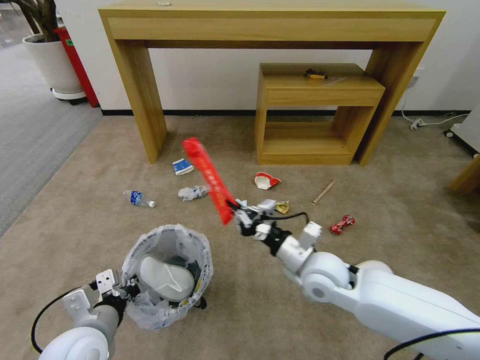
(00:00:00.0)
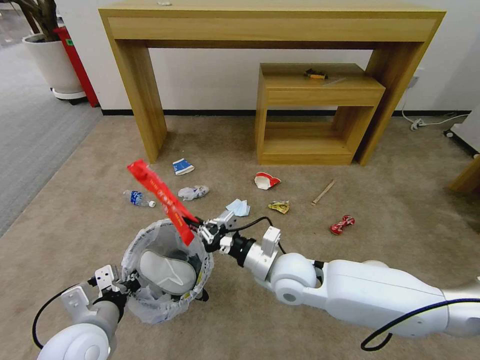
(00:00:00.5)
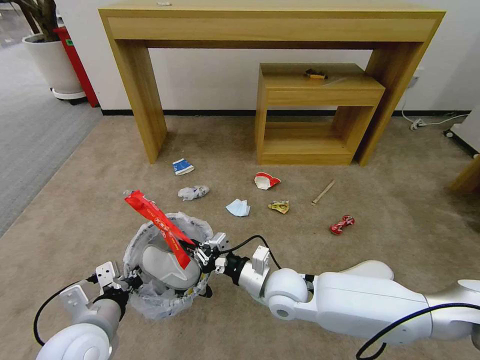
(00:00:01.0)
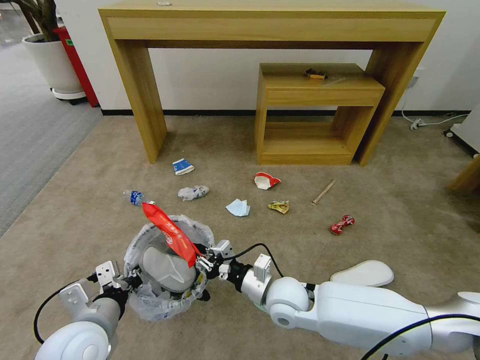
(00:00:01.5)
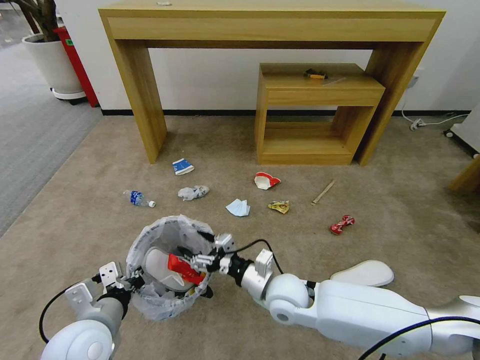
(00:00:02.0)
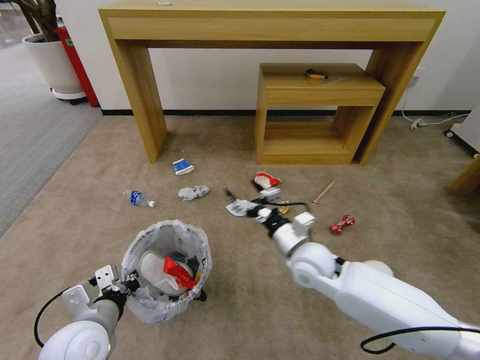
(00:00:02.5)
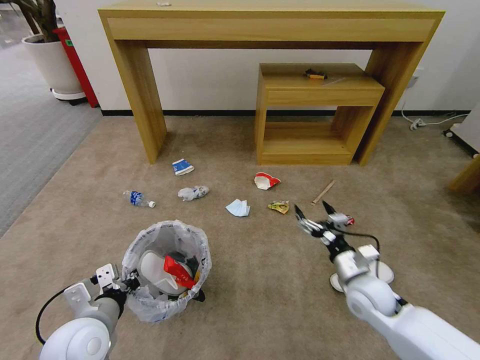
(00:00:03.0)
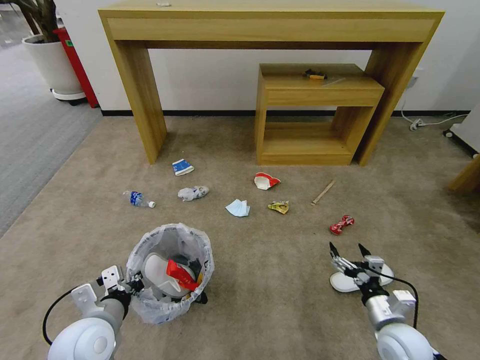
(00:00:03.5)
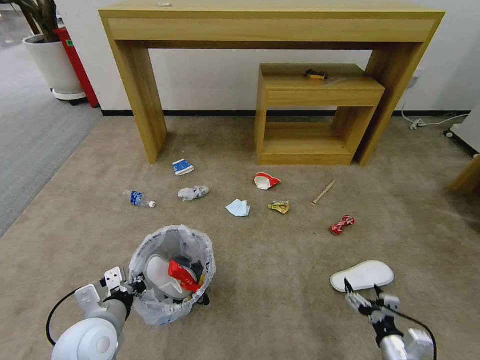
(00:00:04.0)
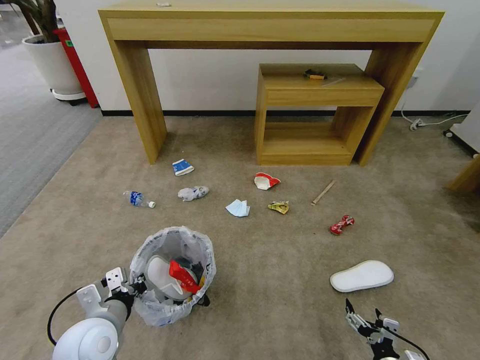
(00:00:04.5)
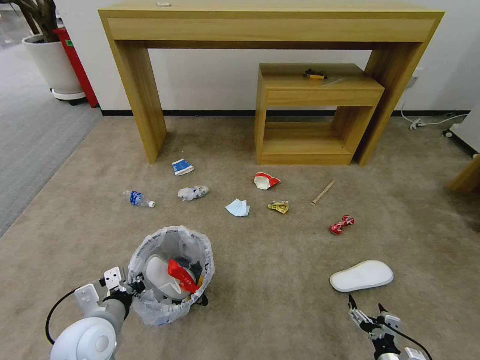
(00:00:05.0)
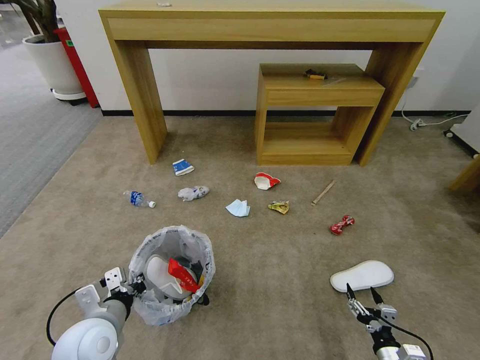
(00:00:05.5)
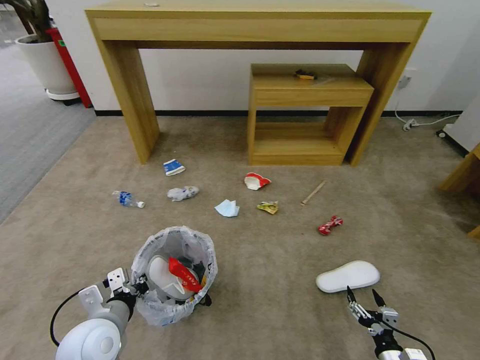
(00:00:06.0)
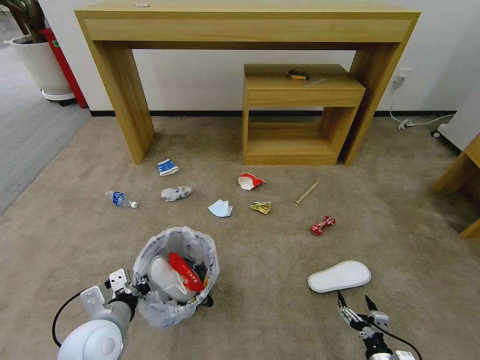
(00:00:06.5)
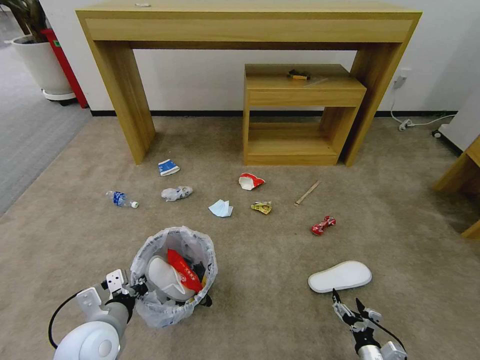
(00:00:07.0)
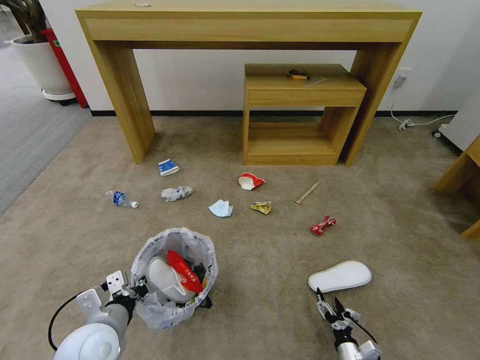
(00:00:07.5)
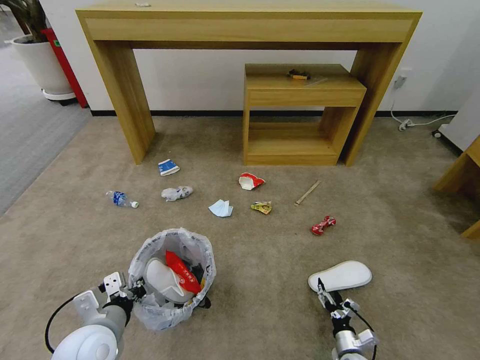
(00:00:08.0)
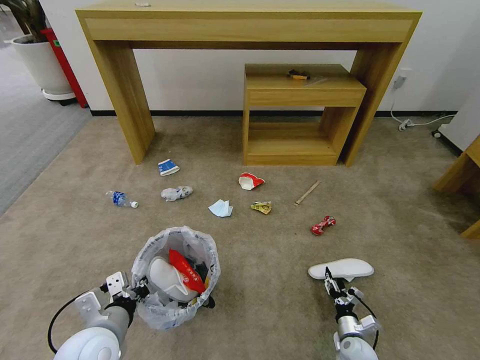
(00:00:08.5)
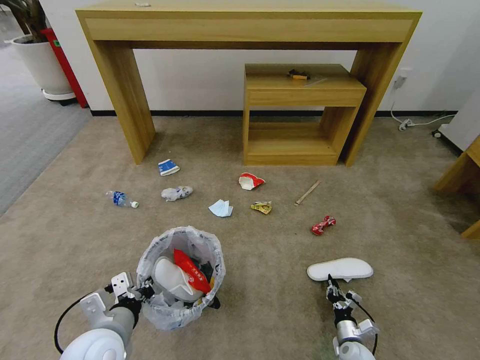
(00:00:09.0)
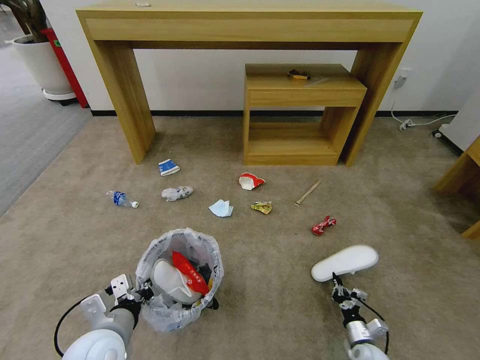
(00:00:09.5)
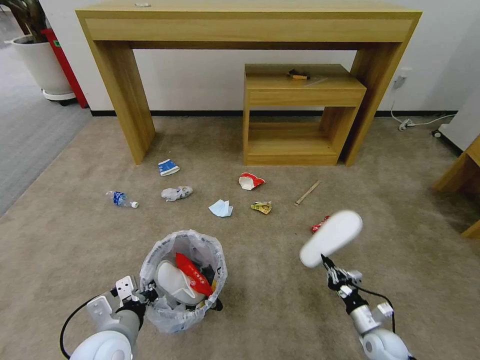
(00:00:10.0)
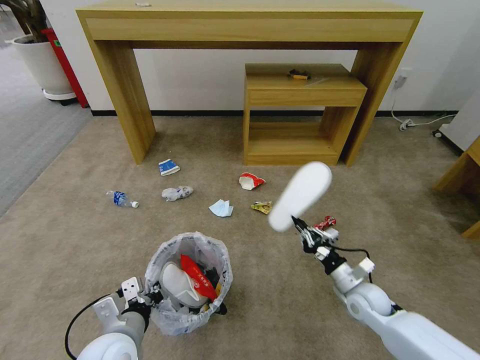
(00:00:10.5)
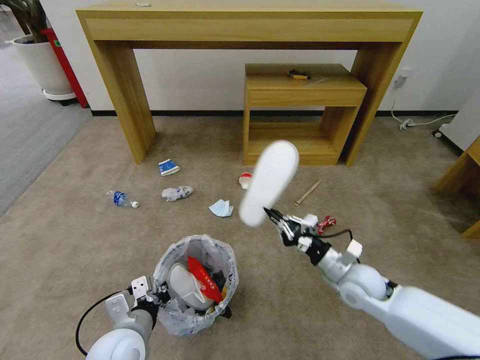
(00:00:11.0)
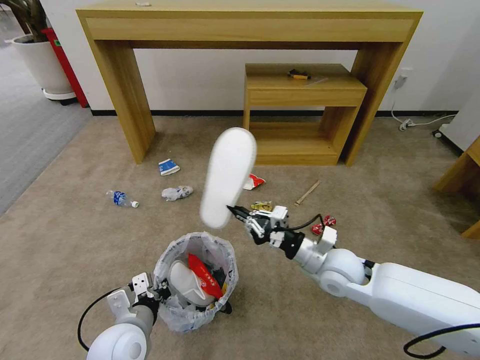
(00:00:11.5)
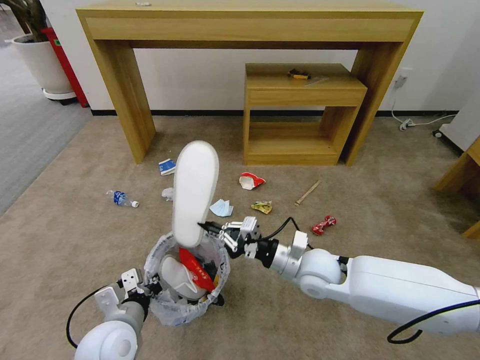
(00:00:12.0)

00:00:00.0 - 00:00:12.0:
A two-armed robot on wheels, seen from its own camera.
Task of the whole recording: Pick up the trash bin and place the garbage on the floor into it.
00:00:00.0 - 00:00:02.0: The right gripper moves to the left and downward, about 10 cm, and opens.
00:00:02.0 - 00:00:04.0: The right gripper shifts roughly 35 cm to the right, backward and downward.
00:00:04.0 - 00:00:06.0: The right gripper heads downward, covering approximately 5 cm.
00:00:06.0 - 00:00:08.0: The right gripper moves downward and forward, some 15 cm.
00:00:08.0 - 00:00:10.0: The right gripper shifts approximately 10 cm upward and to the right, and closes its fingers.
00:00:10.0 - 00:00:12.0: The right gripper moves upward, to the left and forward, about 35 cm.

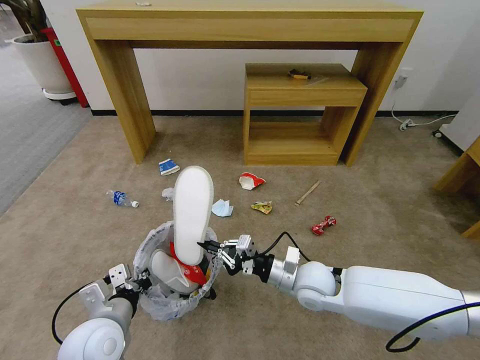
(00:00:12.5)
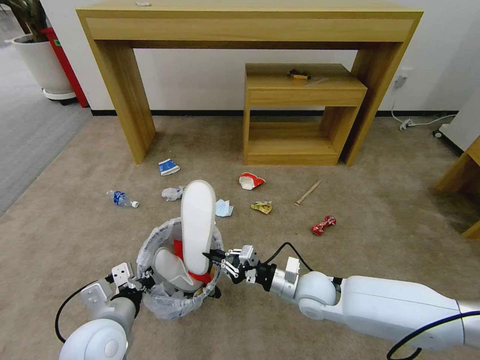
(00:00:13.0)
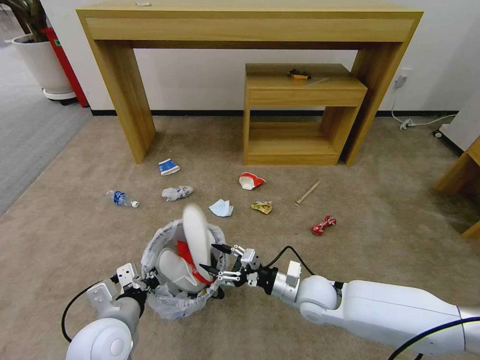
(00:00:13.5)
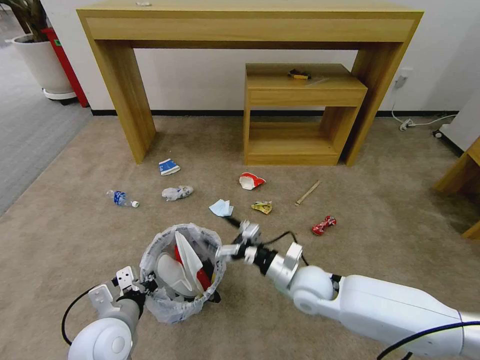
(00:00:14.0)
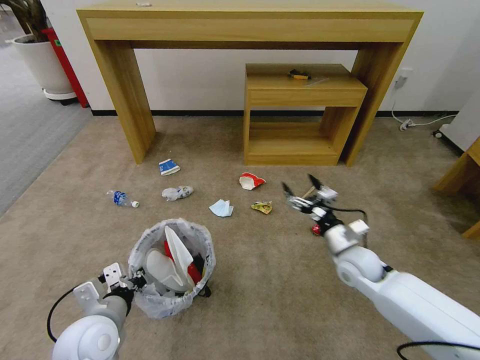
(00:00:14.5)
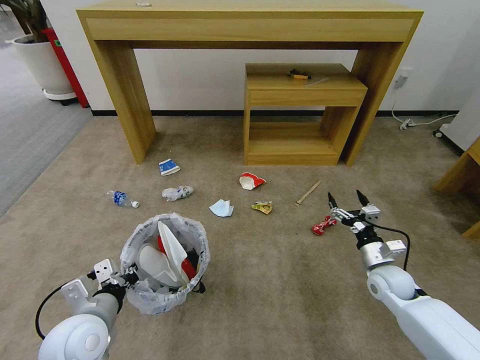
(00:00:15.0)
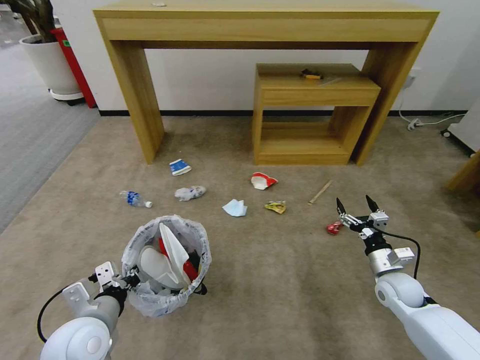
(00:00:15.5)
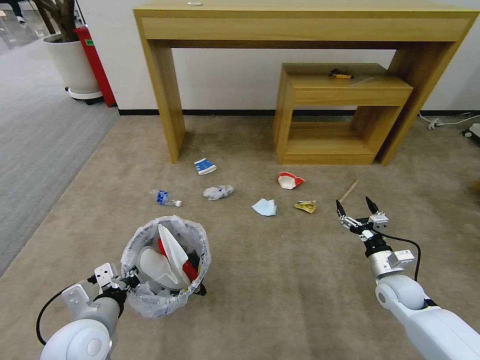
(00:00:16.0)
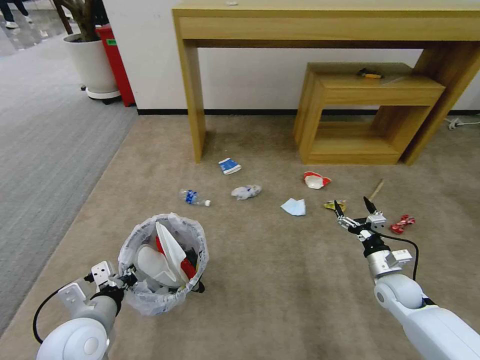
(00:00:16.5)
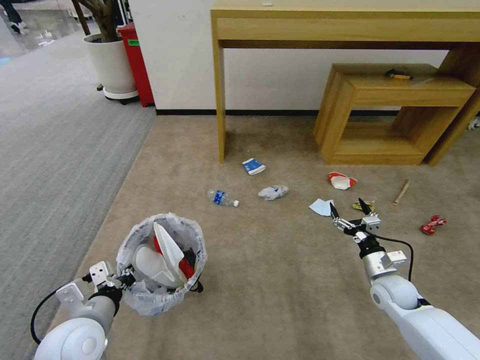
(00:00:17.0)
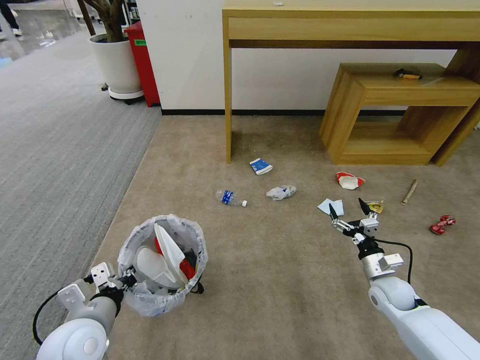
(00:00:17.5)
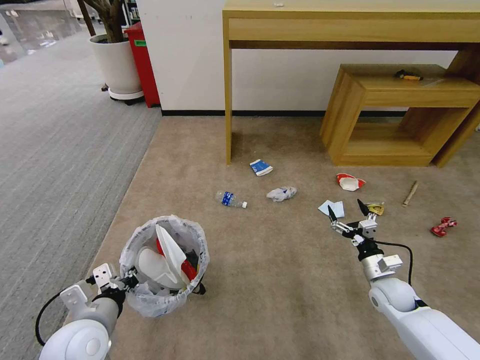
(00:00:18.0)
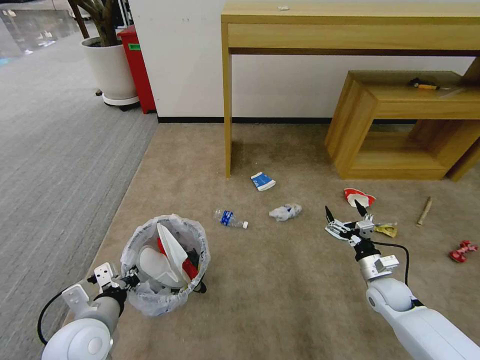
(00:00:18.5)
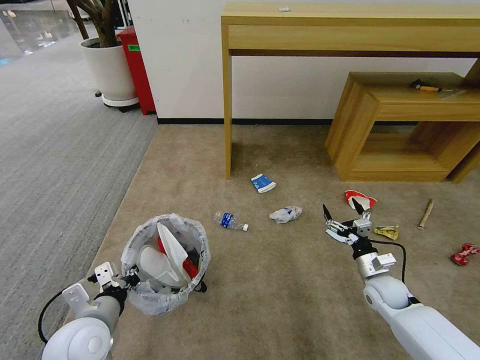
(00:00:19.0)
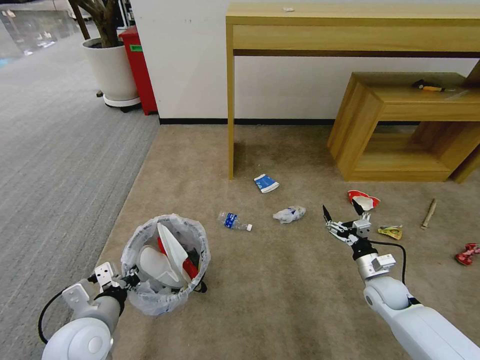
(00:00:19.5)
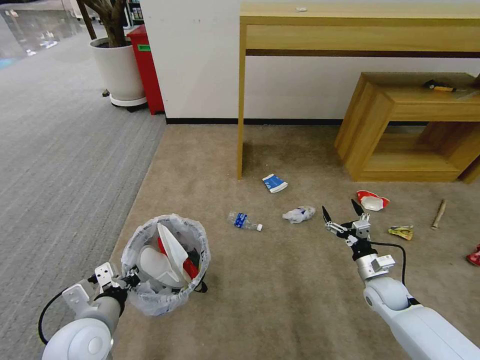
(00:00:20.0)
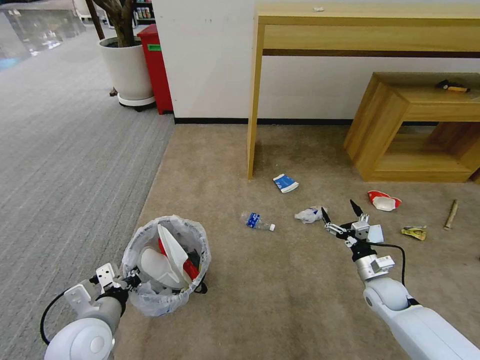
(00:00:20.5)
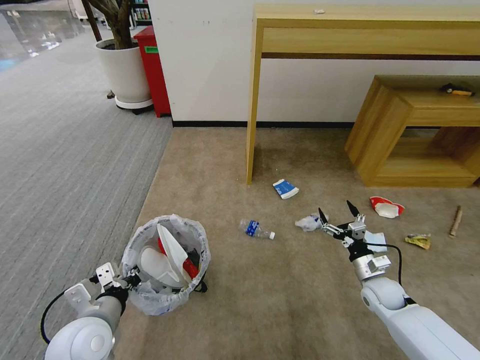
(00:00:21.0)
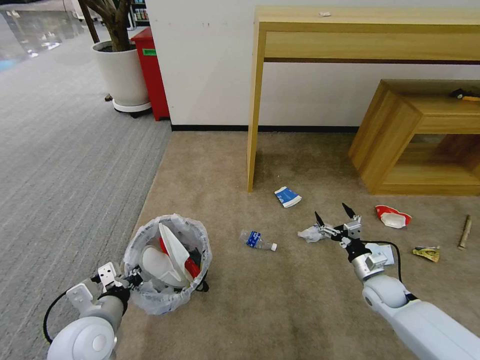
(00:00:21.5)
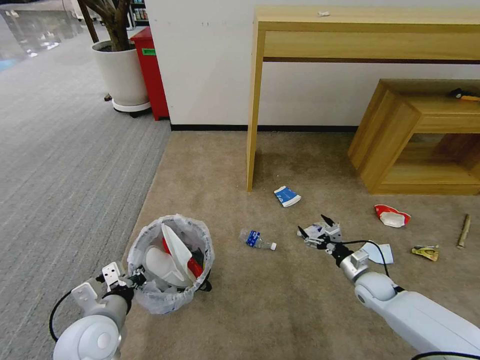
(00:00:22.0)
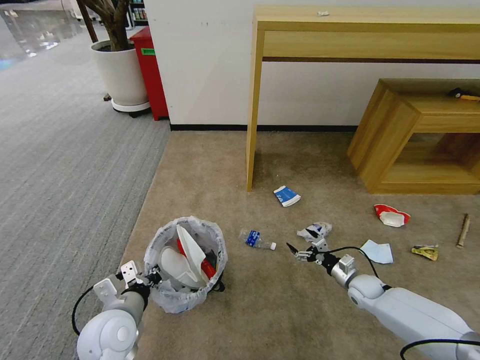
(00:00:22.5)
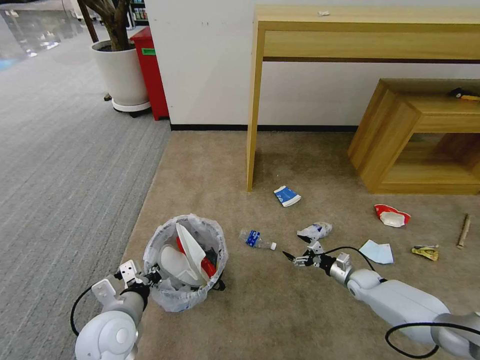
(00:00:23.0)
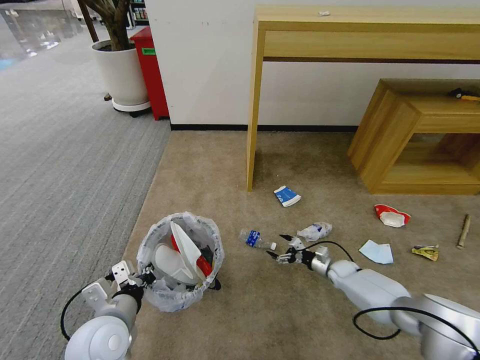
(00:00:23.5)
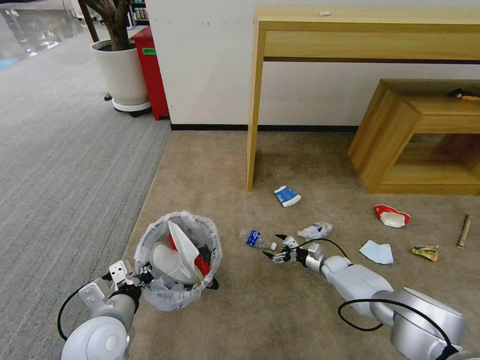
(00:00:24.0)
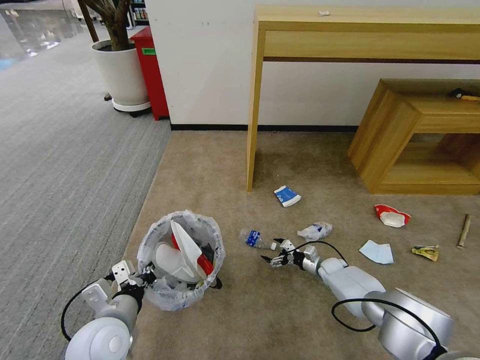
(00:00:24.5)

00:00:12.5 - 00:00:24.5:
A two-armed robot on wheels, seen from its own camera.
Task of the whole recording: Pick up the trash bin and place the garbage on the floor into it.
00:00:12.5 - 00:00:14.5: The right gripper is displaced to the right by approximately 10 cm, and opens its fingers.
00:00:14.5 - 00:00:16.5: The right gripper is displaced to the right and downward by about 15 cm.
00:00:18.5 - 00:00:20.5: Both grippers stay about where they are.
00:00:20.5 - 00:00:22.5: The right gripper heads downward, covering approximately 5 cm.
00:00:22.5 - 00:00:24.5: The right gripper moves forward, downward and to the left, approximately 10 cm.

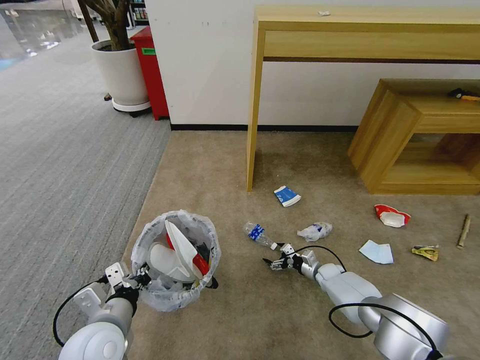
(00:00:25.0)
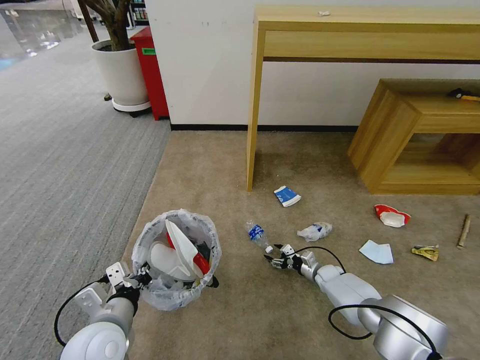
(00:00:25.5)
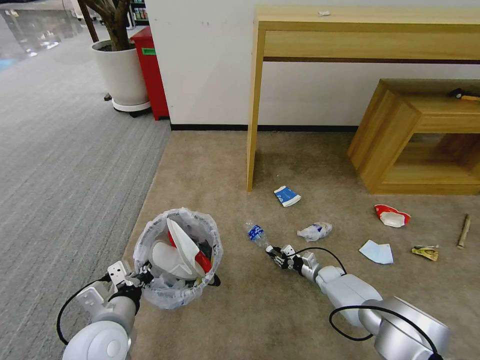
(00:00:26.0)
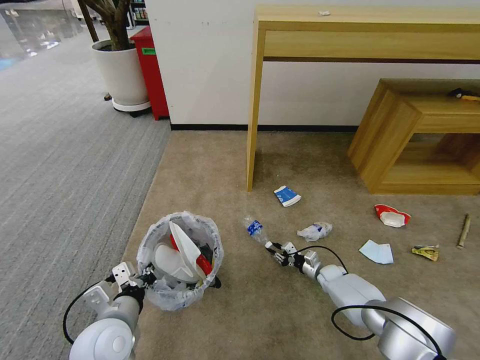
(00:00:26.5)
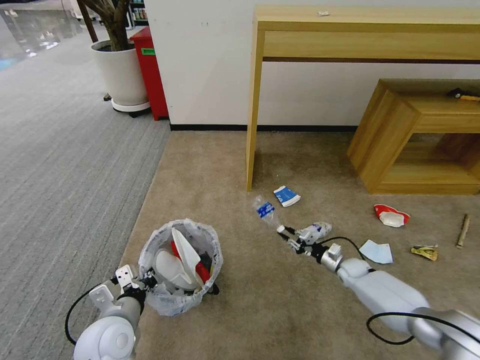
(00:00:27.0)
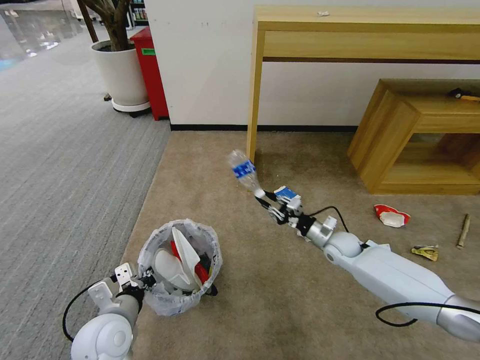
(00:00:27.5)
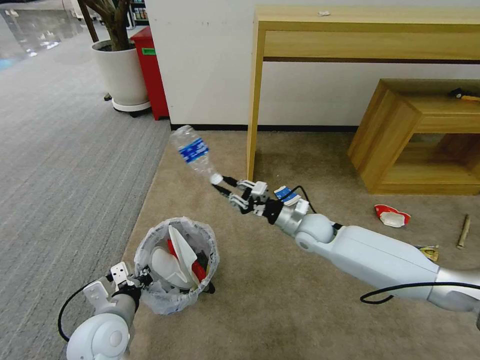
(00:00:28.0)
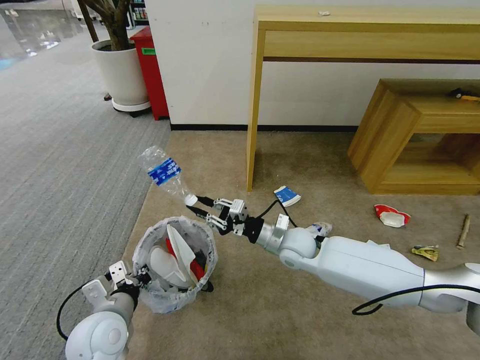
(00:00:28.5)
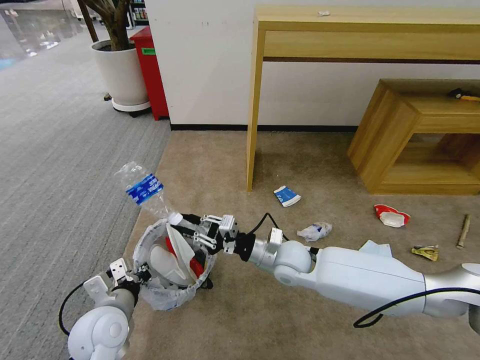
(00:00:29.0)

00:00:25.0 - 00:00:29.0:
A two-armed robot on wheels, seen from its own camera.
Task of the whole recording: Pick up the trash bin and place the garbage on the floor into it.
00:00:25.0 - 00:00:27.0: The right gripper heads to the right, covering some 5 cm, and closes up.
00:00:27.0 - 00:00:29.0: The right gripper travels to the left and upward by approximately 35 cm.
